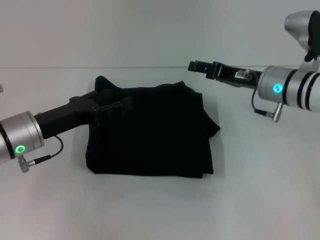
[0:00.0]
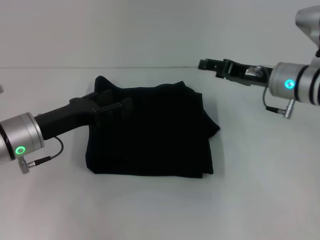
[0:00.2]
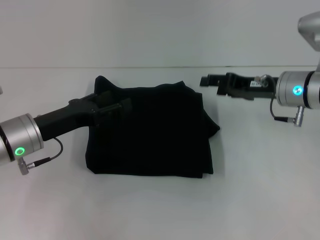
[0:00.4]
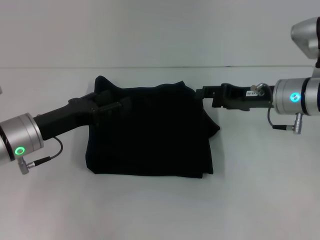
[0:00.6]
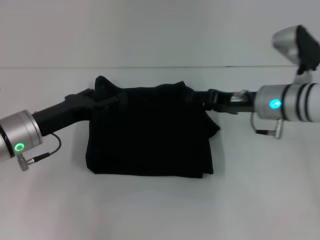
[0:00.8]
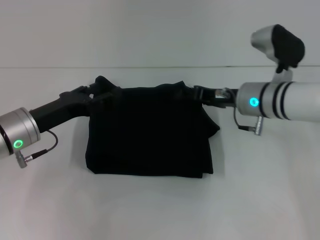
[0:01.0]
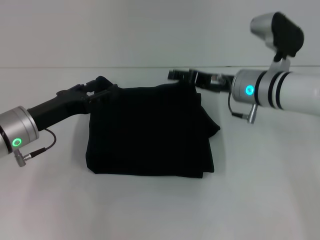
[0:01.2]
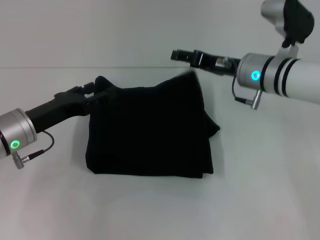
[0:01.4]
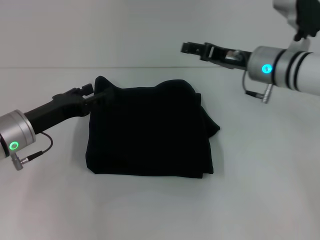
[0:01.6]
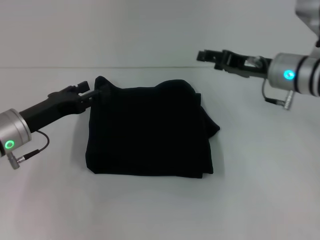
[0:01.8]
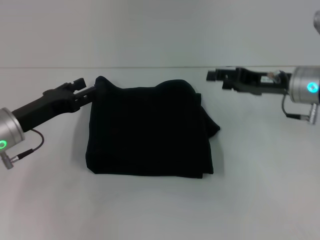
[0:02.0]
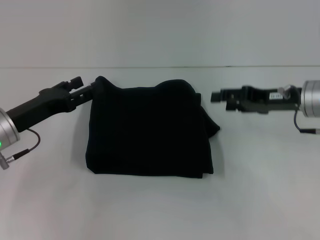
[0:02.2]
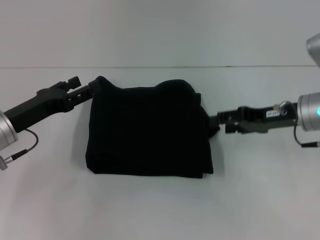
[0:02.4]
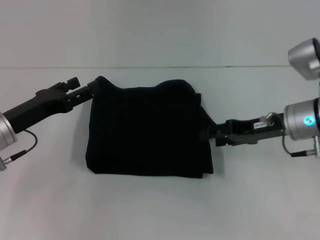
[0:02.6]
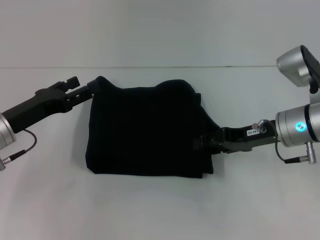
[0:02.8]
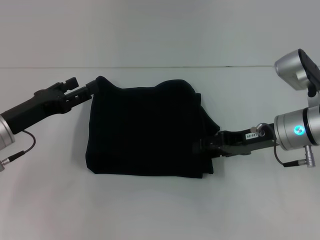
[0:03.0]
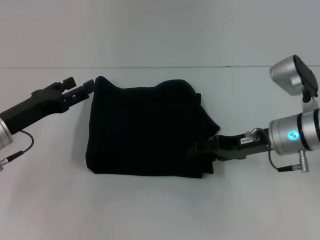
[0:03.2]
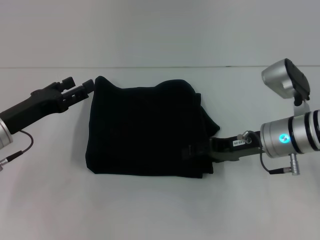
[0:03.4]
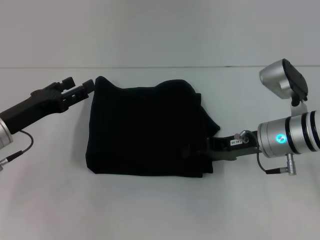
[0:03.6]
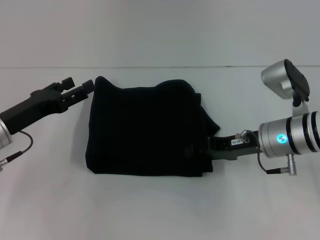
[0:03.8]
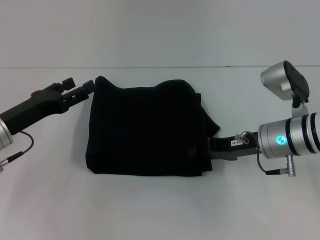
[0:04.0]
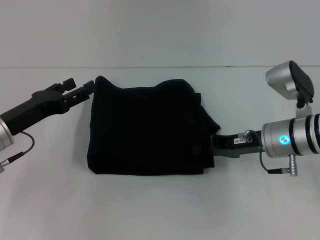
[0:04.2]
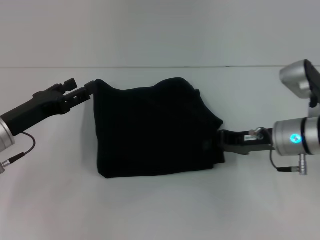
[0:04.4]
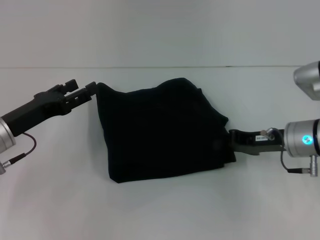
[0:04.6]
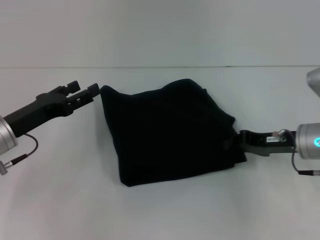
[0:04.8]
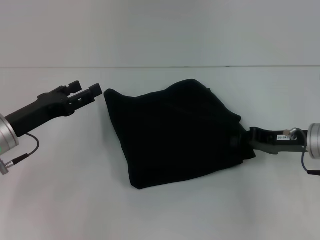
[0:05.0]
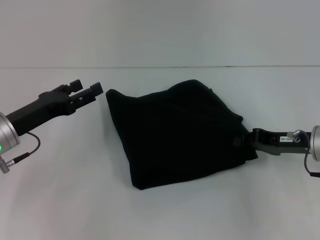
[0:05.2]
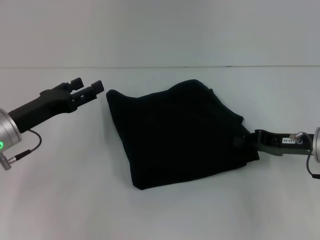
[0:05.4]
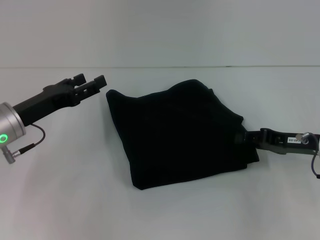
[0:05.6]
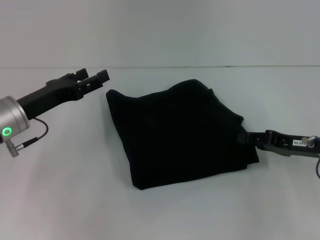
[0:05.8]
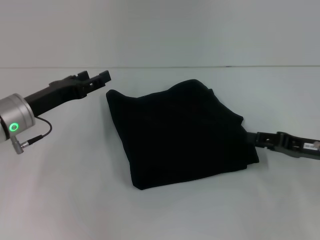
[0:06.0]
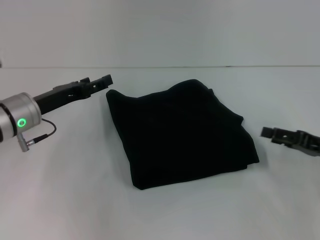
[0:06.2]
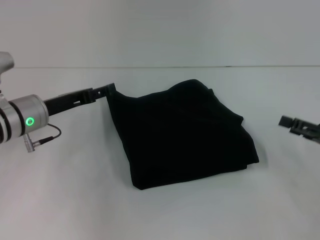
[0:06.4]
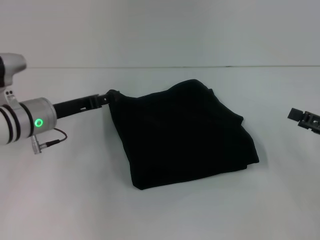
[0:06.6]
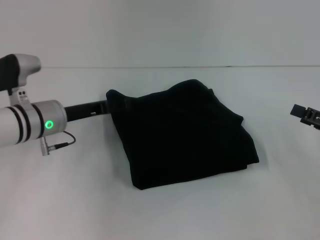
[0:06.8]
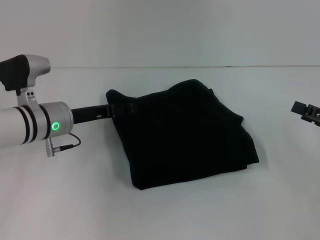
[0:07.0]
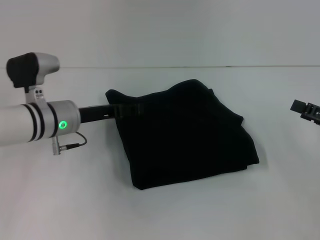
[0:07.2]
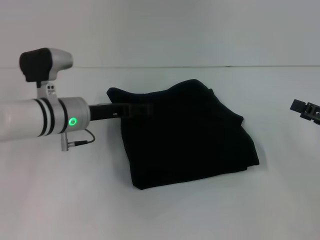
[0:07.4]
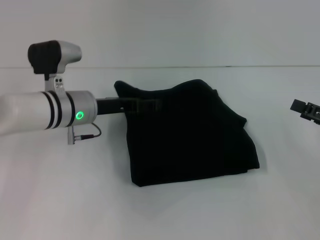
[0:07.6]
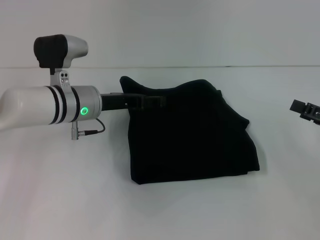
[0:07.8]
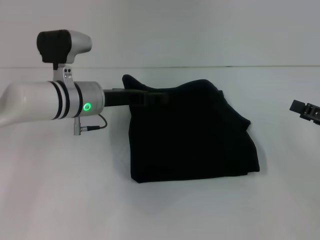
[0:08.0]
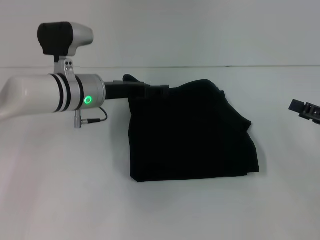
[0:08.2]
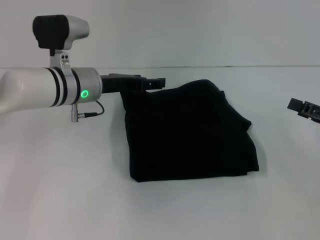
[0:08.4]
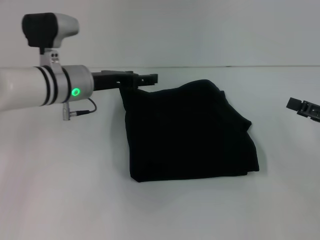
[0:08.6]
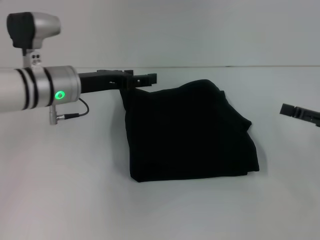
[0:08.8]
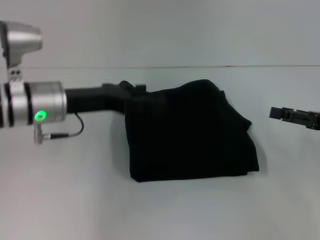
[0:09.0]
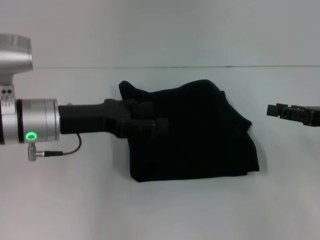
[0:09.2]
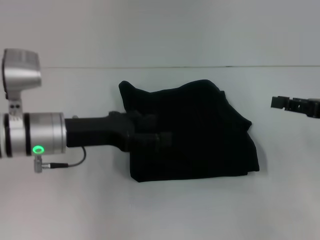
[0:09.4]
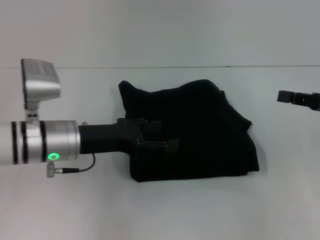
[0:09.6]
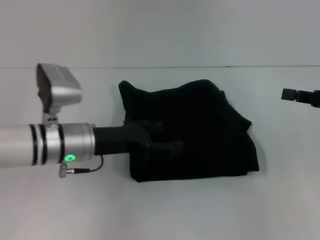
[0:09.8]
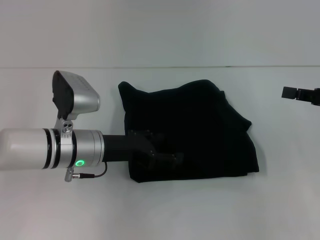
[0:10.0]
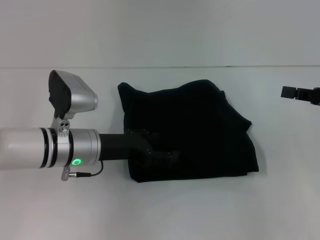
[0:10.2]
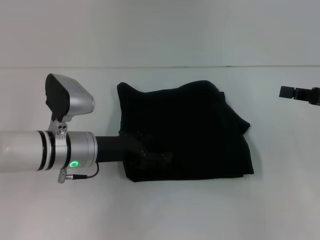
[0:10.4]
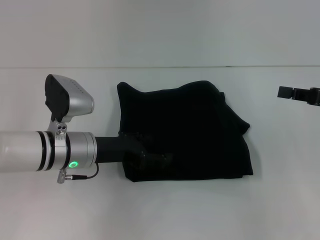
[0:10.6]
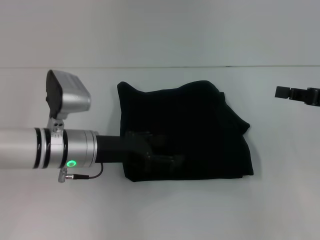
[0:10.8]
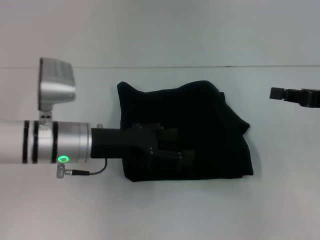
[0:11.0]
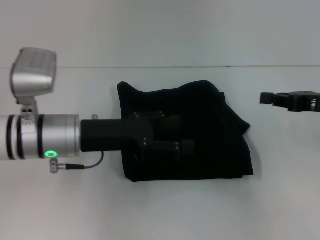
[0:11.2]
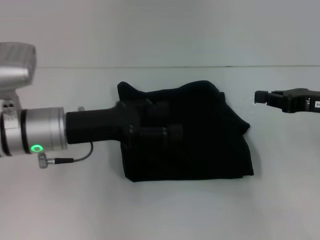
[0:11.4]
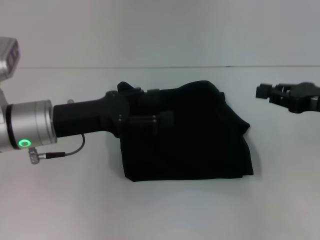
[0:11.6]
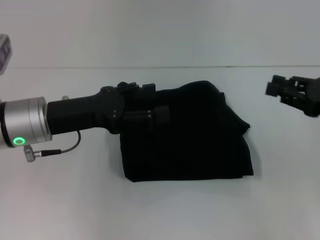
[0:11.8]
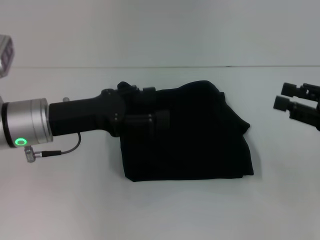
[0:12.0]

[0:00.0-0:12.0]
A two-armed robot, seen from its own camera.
0:00.0 to 0:01.6: The grippers make only small movements.
0:01.6 to 0:03.0: The right gripper moves backward, approximately 5 cm.
0:03.0 to 0:04.4: The right gripper closes up.
0:04.4 to 0:06.0: The right gripper travels to the right by roughly 10 cm.
0:06.0 to 0:07.6: The two grippers go some 5 cm to the right. The right gripper opens up.
0:07.6 to 0:09.0: The left gripper shifts by some 5 cm.
0:09.0 to 0:10.4: The left gripper goes approximately 5 cm downward, while the right gripper closes its fingers.
0:10.4 to 0:12.0: The left gripper shifts approximately 5 cm upward, while the right gripper opens.

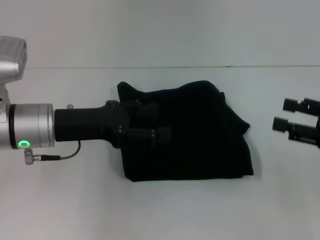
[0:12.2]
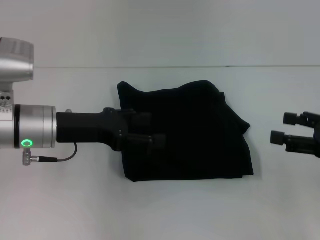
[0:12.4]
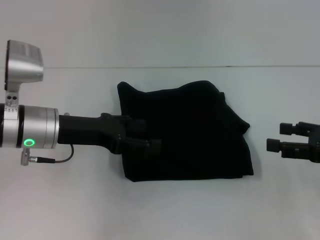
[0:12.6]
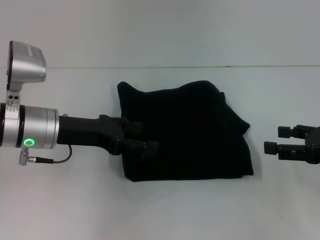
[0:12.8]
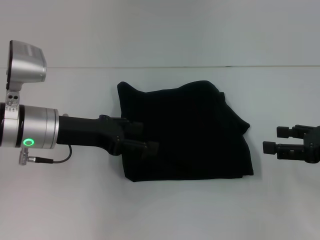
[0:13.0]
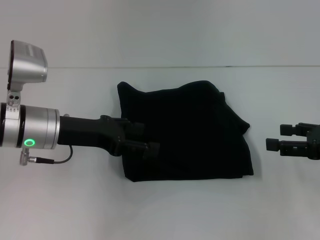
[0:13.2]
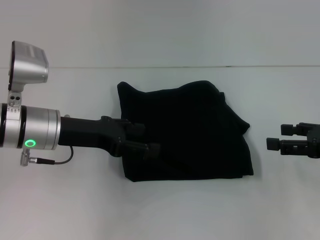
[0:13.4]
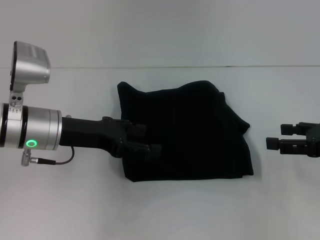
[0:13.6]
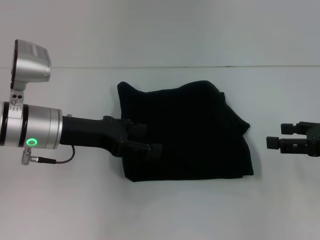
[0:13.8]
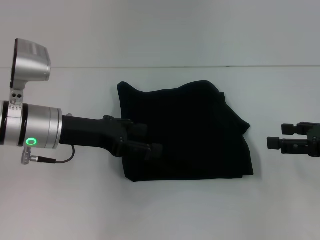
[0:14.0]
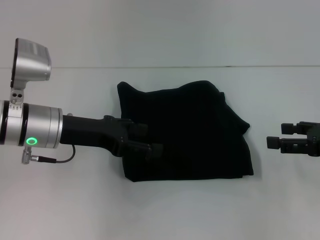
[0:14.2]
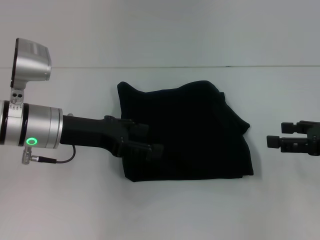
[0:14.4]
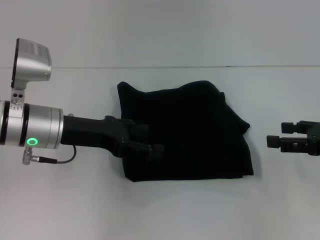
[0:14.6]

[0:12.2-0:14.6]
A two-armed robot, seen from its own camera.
0:12.2 to 0:13.4: There are only small adjustments of the grippers.
0:13.4 to 0:14.6: Neither gripper changes place.
